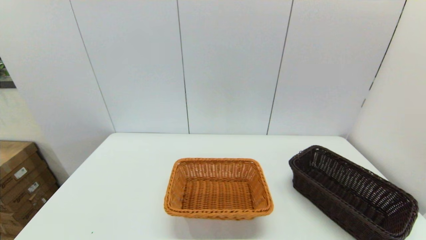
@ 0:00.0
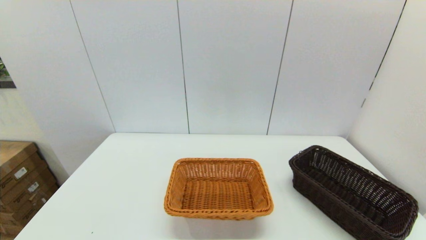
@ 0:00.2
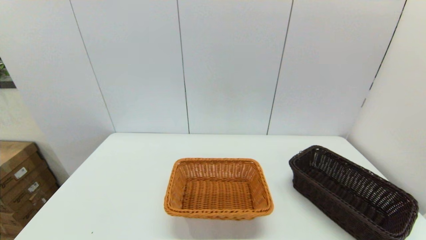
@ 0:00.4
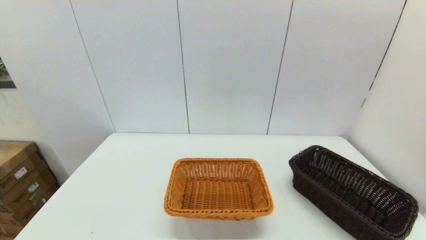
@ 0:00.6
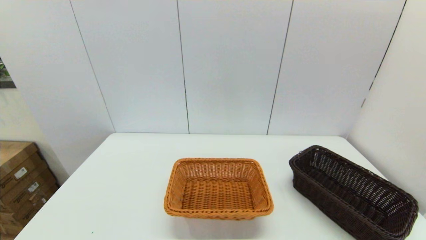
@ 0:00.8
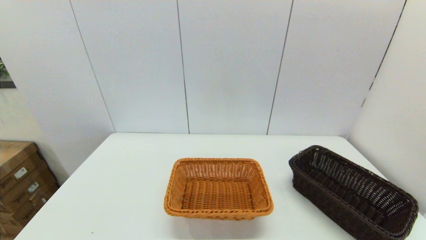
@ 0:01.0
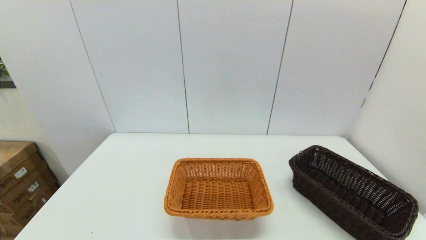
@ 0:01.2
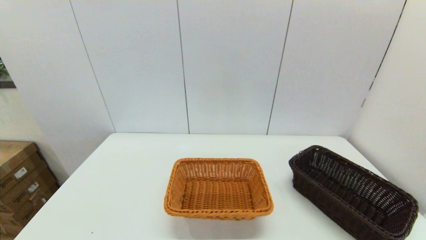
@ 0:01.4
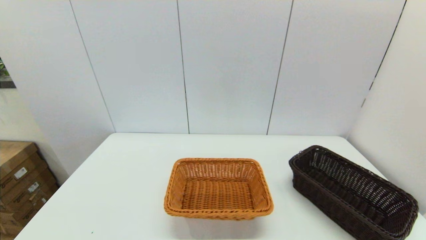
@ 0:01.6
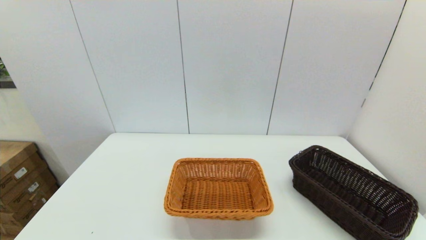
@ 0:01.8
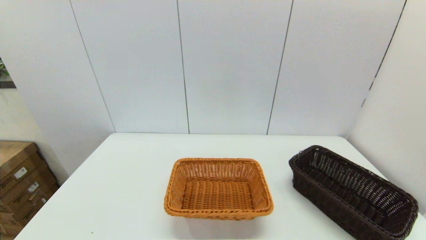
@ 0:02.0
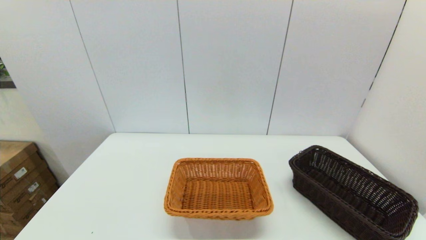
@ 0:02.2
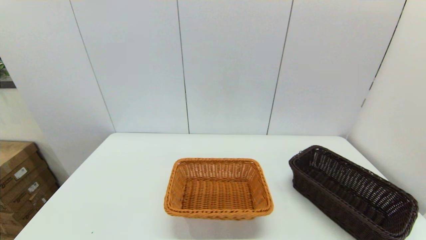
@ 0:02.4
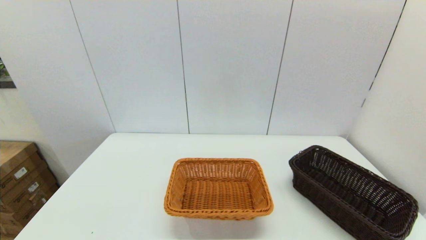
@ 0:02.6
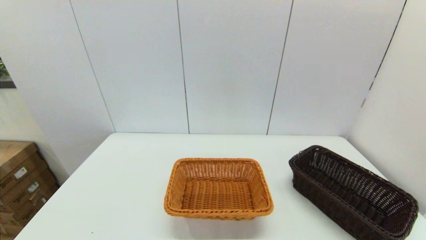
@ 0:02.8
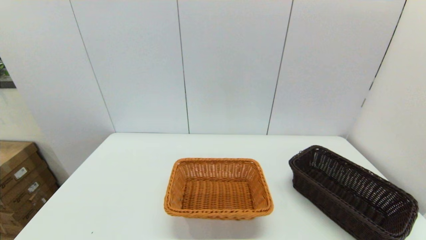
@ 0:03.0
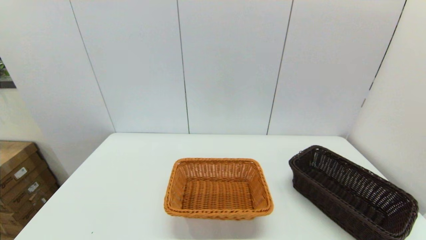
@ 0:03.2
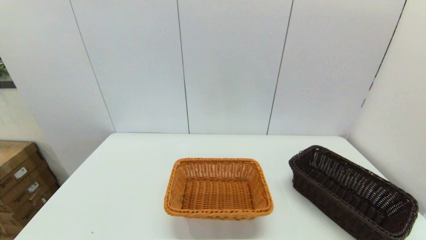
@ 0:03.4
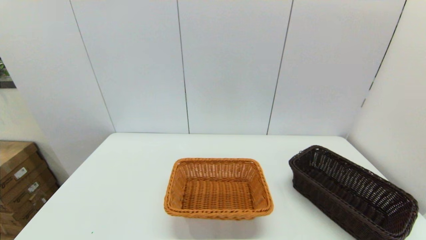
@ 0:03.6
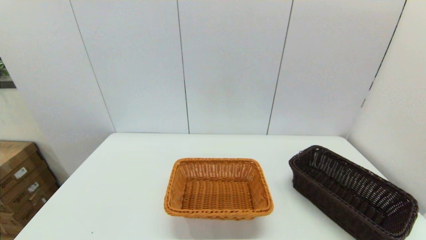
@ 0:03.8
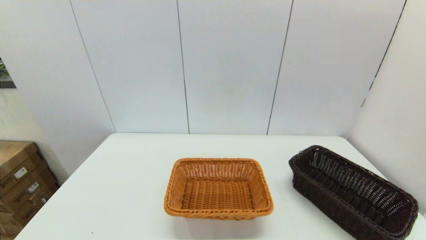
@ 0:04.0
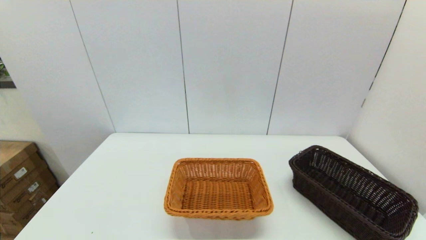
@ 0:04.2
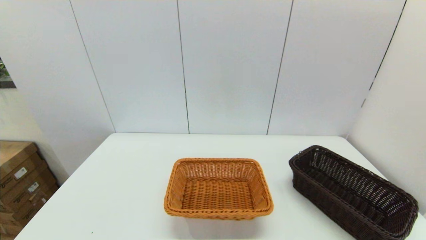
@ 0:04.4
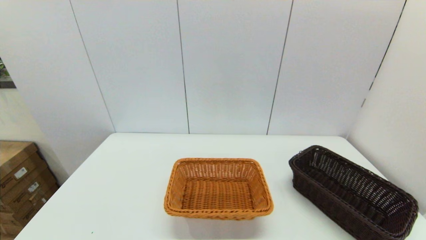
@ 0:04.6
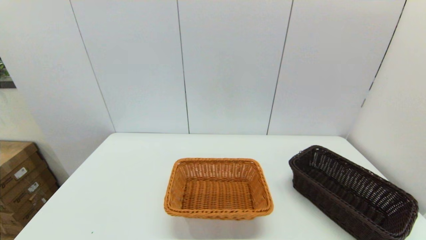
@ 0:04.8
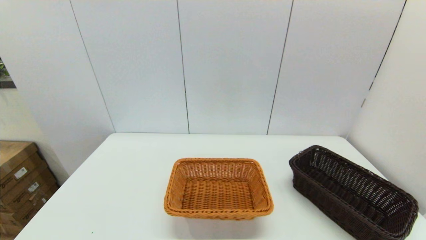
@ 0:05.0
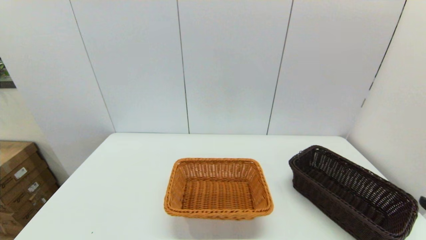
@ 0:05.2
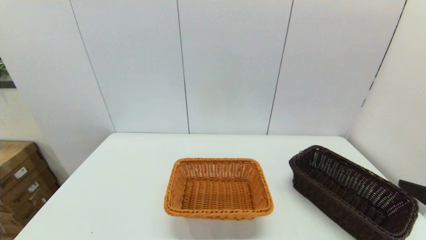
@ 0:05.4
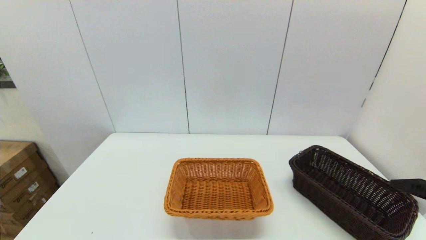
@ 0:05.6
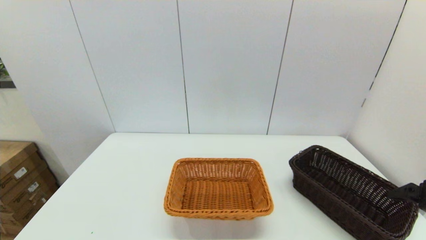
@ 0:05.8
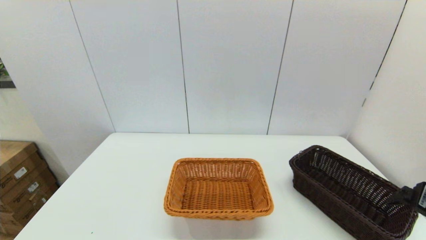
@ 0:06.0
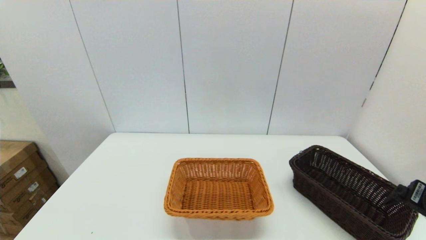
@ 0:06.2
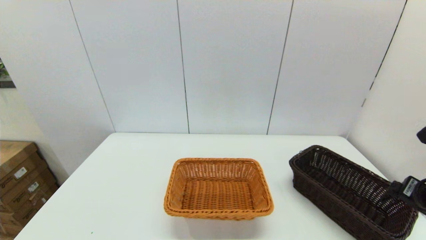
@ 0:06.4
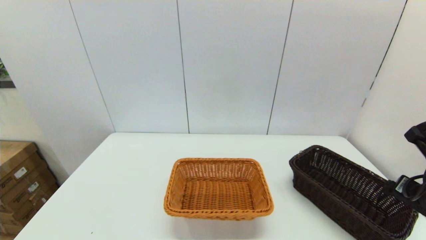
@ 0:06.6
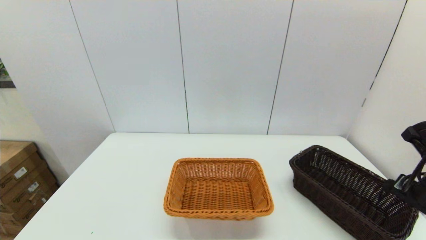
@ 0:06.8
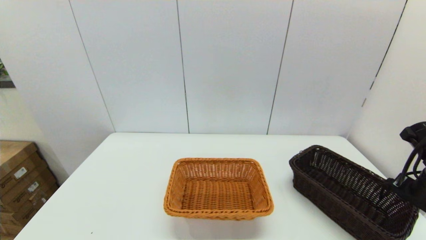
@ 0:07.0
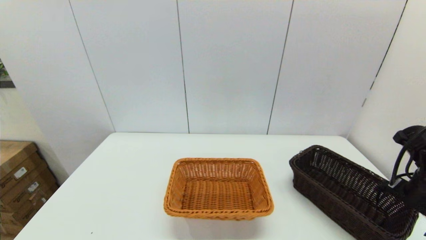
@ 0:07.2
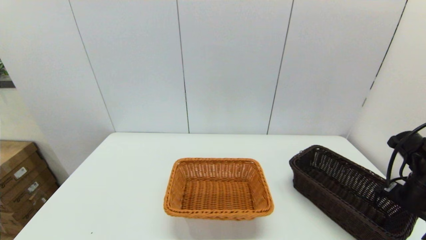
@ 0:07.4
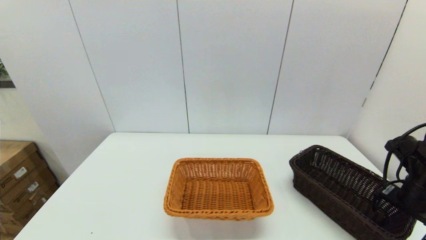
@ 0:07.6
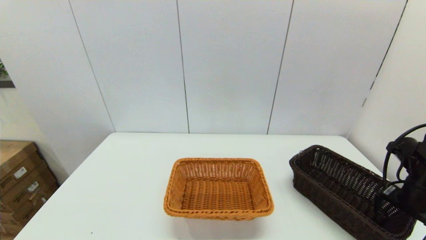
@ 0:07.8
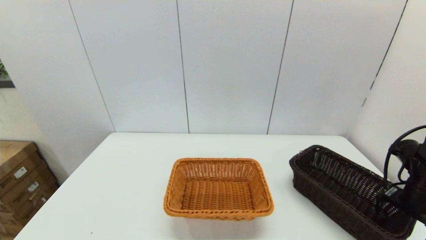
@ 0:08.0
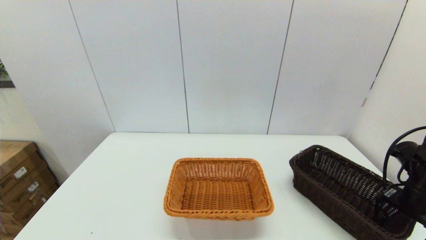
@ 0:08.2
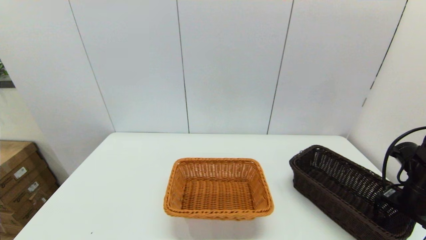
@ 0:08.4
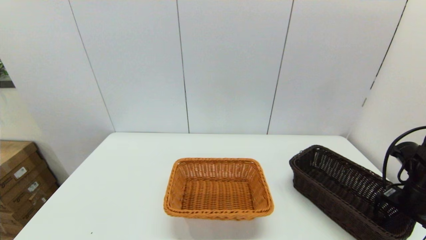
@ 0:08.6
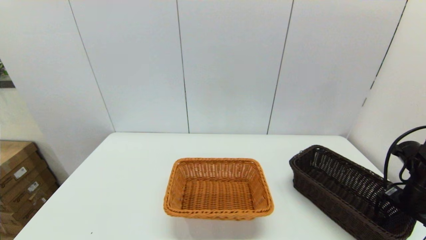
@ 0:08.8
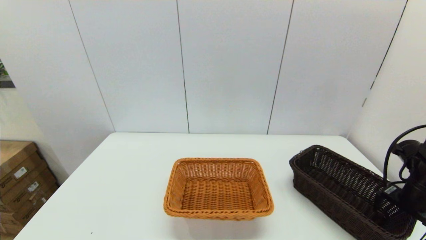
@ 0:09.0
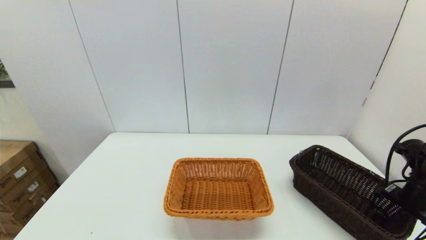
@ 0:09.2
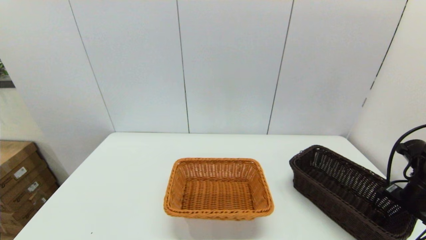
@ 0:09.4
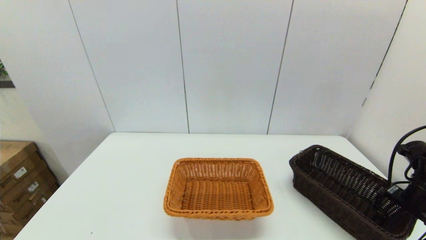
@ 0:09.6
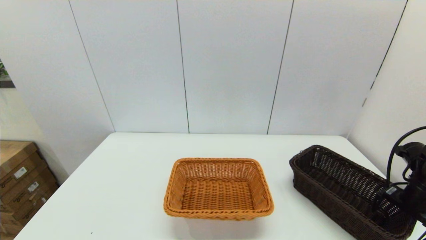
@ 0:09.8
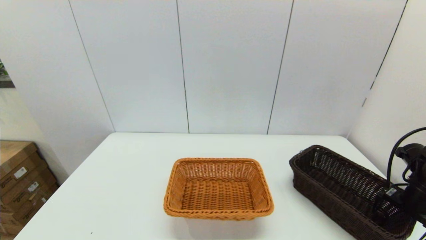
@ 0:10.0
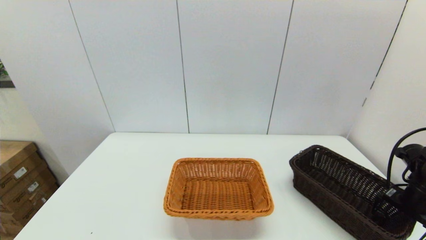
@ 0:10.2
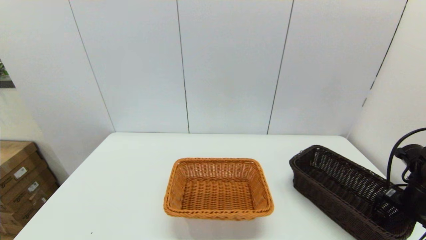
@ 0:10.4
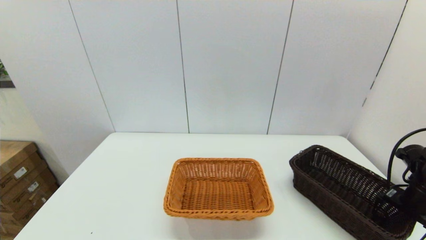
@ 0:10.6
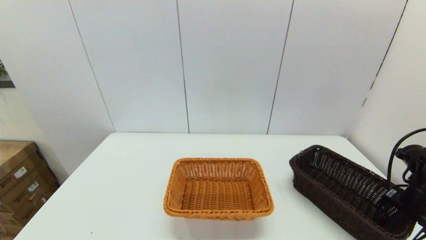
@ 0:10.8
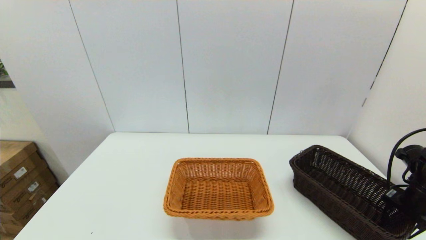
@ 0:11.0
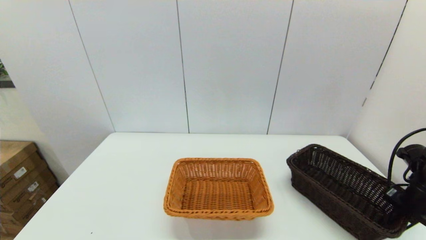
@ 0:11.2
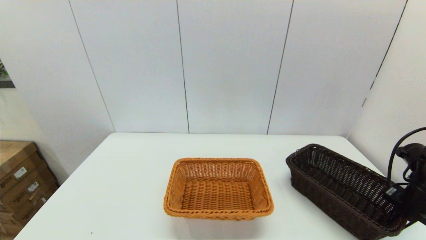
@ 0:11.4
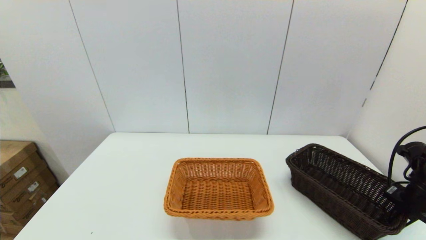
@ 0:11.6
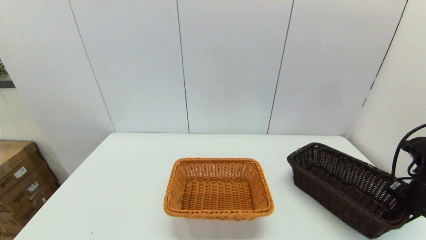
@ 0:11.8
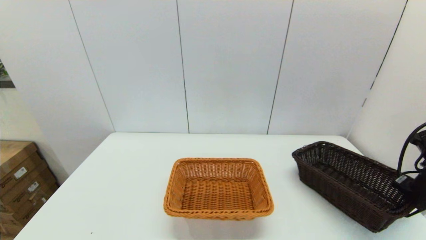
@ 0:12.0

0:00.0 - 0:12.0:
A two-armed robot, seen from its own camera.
Task of the whole recording: stack a basket on top of another basket.
Step, 0:00.0 - 0:11.8: Grasp the dark basket with the right gripper.
0:06.0 - 0:07.6: The right gripper goes roughly 15 cm forward, downward and to the right.
0:09.0 - 0:10.4: The grippers make only small movements.
0:10.4 - 0:12.0: The right gripper closes its fingers.

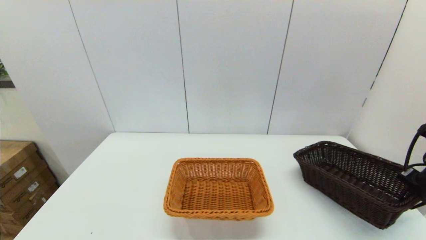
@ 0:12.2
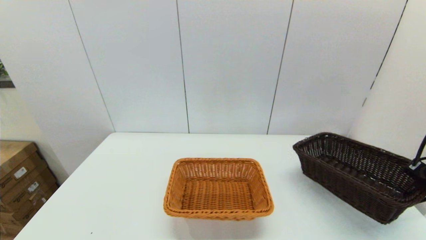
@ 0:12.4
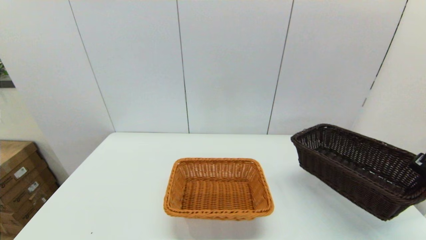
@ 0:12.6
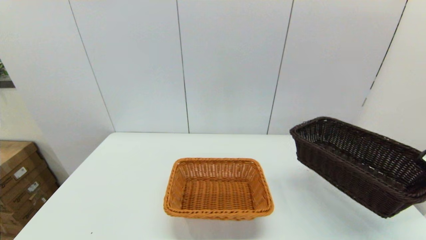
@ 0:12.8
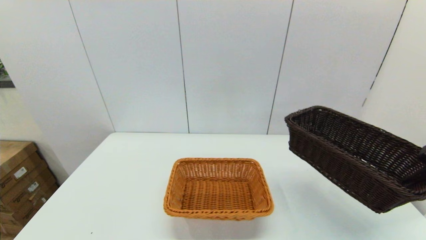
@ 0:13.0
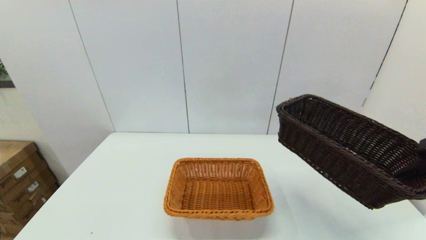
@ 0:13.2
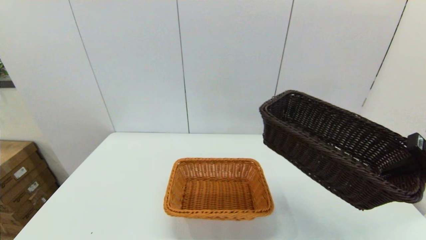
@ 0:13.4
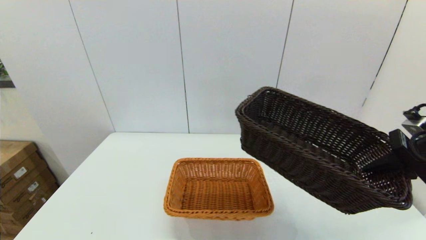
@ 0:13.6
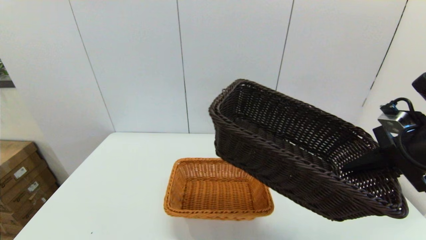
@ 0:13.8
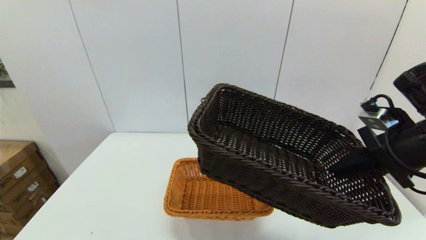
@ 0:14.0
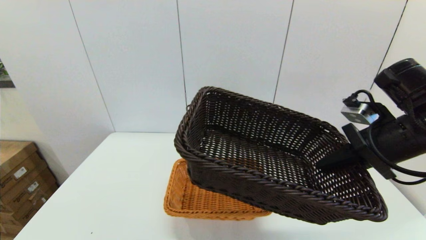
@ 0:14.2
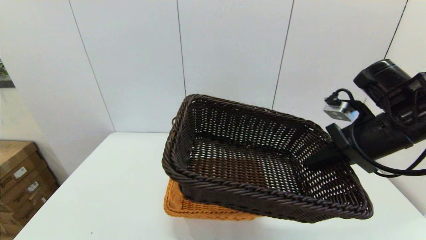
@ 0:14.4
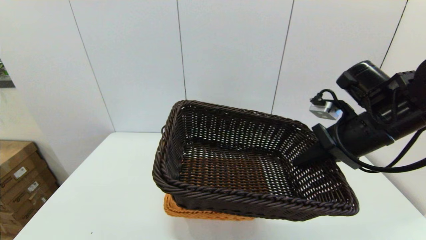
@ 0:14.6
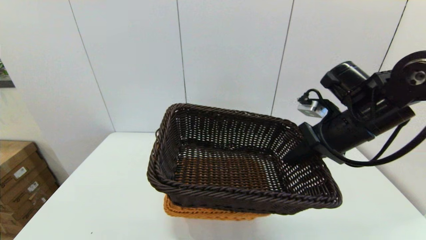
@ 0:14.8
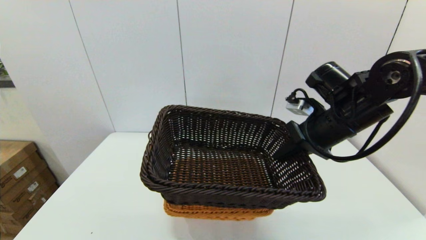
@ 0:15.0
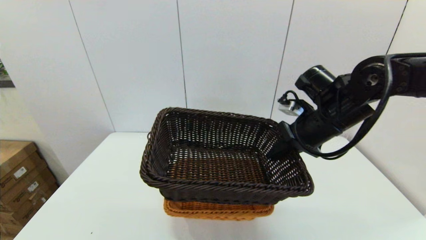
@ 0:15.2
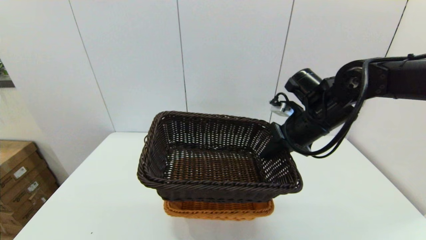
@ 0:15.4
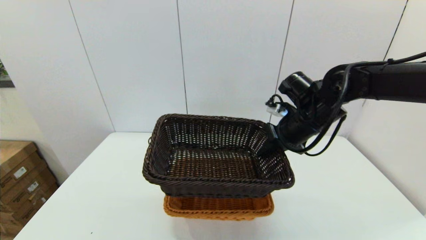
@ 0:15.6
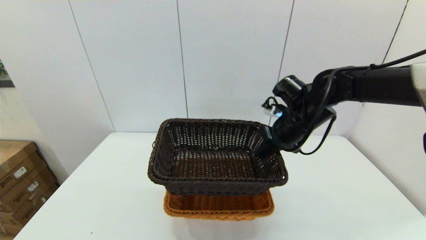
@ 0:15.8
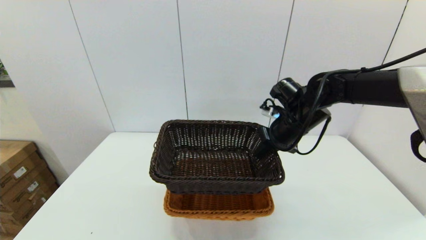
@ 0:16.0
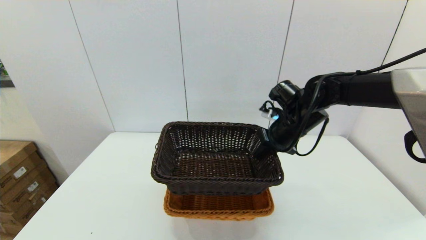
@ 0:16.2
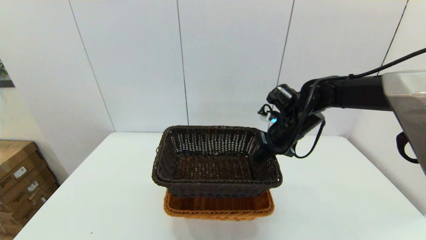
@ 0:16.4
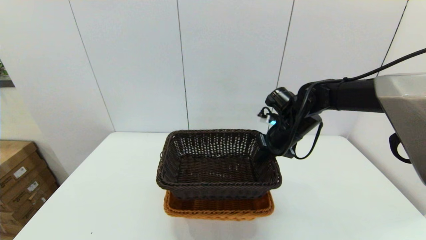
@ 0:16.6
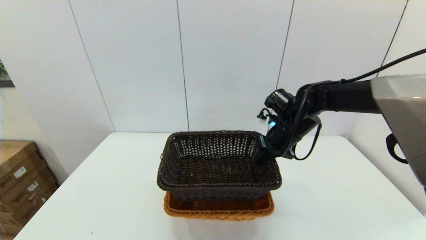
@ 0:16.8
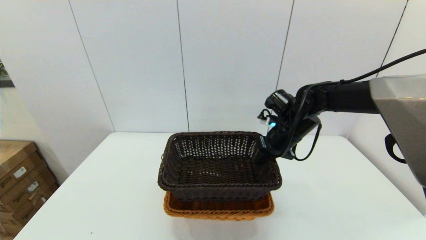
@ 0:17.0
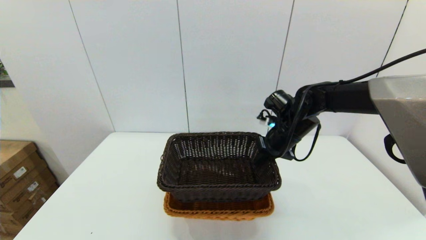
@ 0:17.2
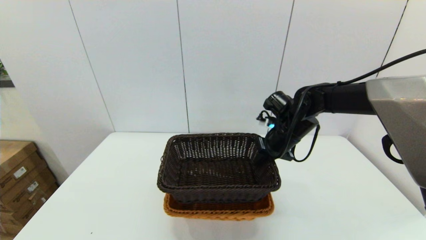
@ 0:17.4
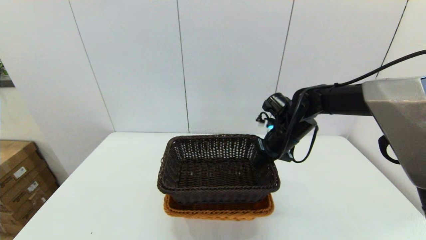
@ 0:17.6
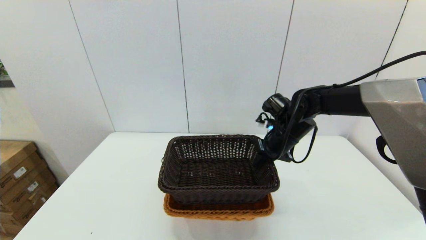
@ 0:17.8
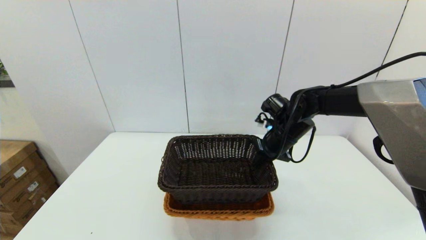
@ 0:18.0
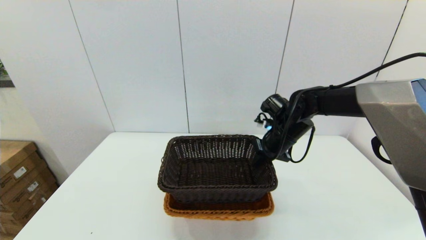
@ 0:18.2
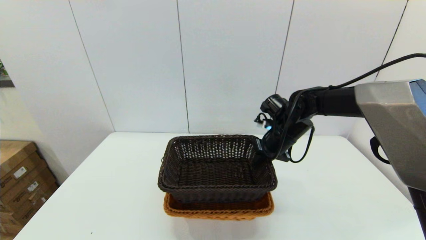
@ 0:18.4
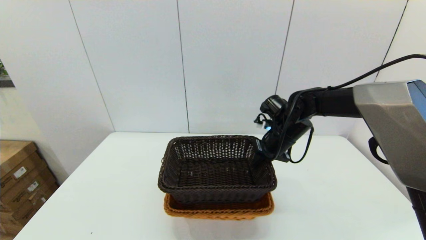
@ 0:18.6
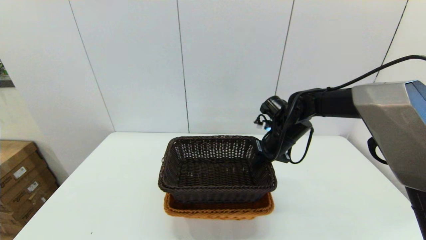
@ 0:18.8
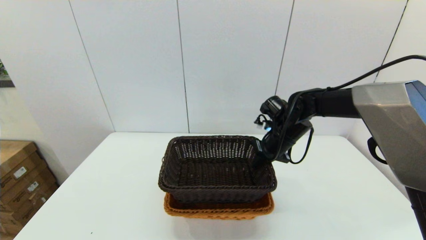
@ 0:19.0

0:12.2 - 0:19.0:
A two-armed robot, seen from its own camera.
Task of the whole recording: stack a basket on top of another basket.
0:12.2 - 0:13.6: The right gripper goes about 15 cm to the left, upward and backward.
0:13.6 - 0:15.0: The right gripper goes roughly 15 cm to the left and forward.
0:15.0 - 0:16.2: The right gripper is displaced forward and downward by roughly 10 cm.
0:16.2 - 0:19.0: The grippers stay close to where they were, moving slightly.
